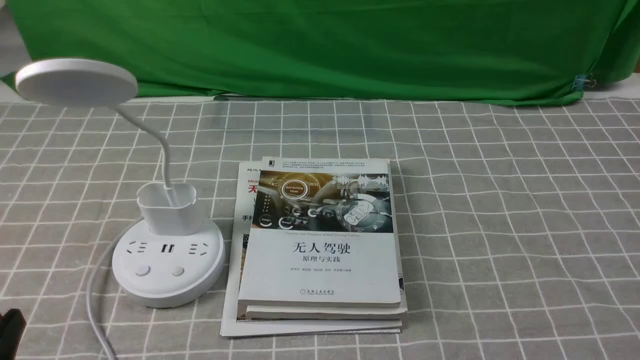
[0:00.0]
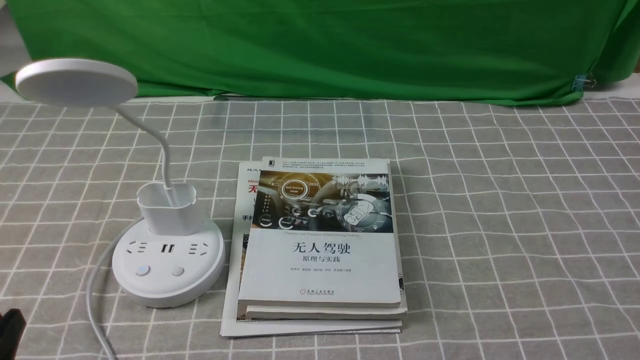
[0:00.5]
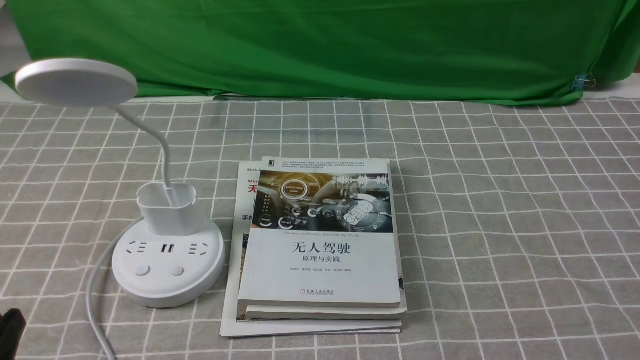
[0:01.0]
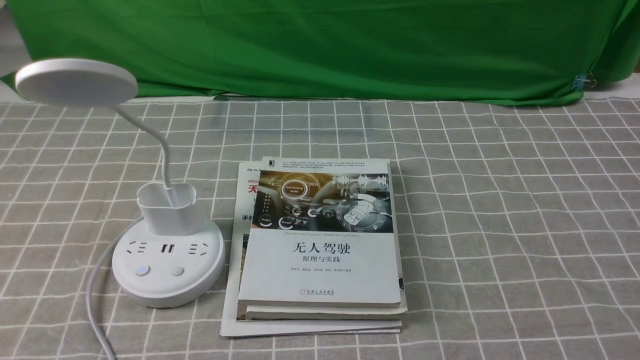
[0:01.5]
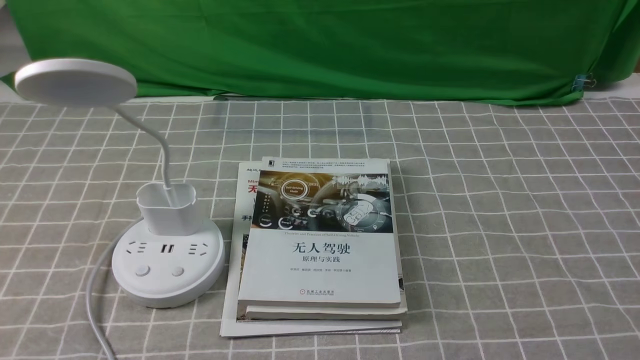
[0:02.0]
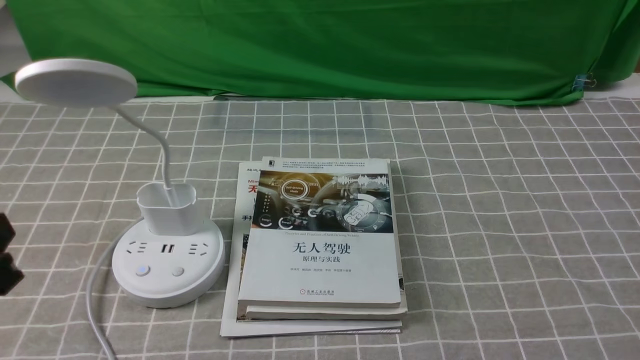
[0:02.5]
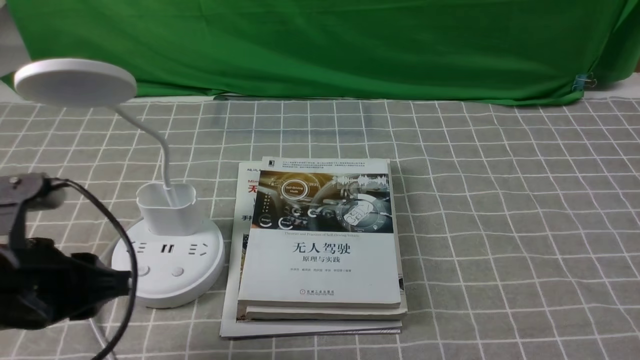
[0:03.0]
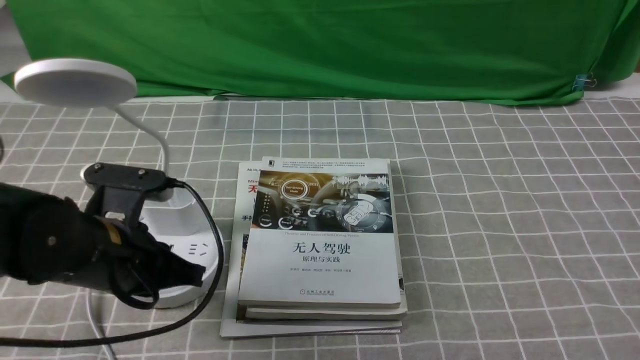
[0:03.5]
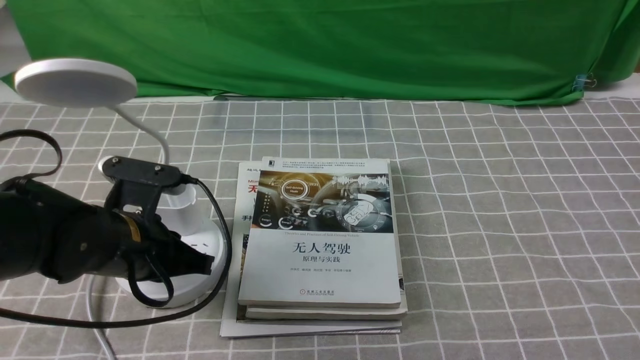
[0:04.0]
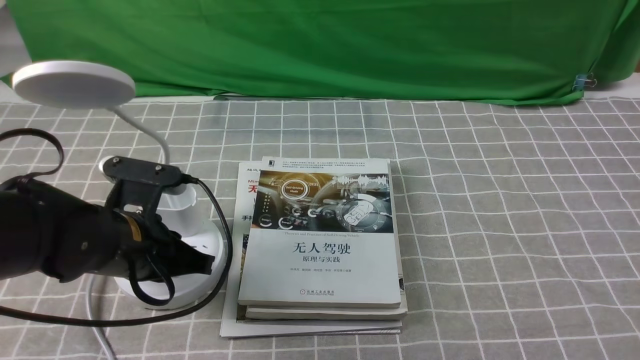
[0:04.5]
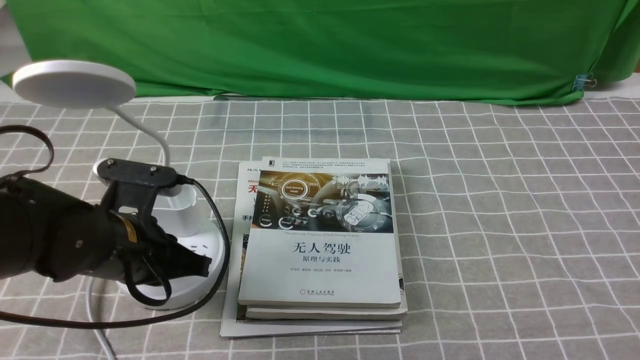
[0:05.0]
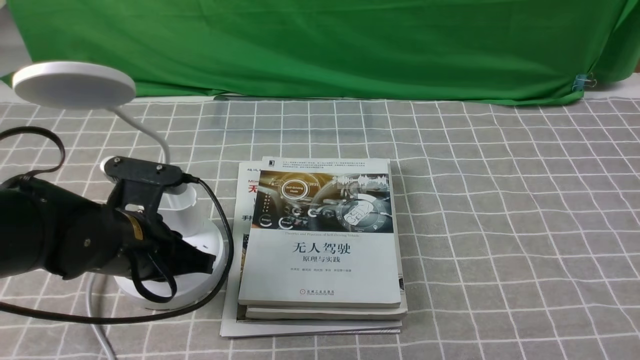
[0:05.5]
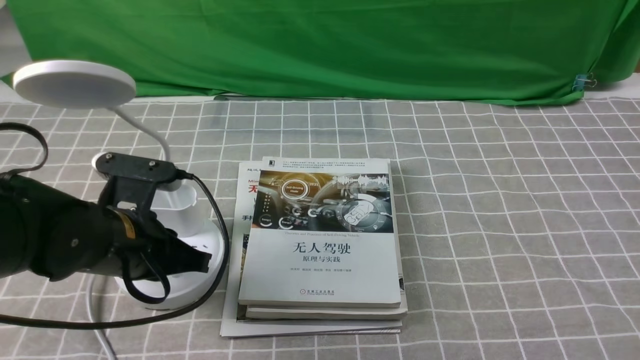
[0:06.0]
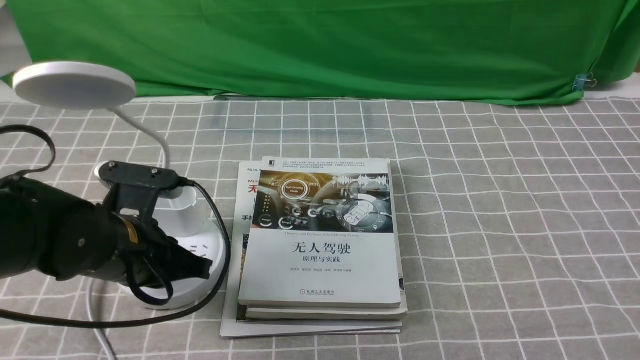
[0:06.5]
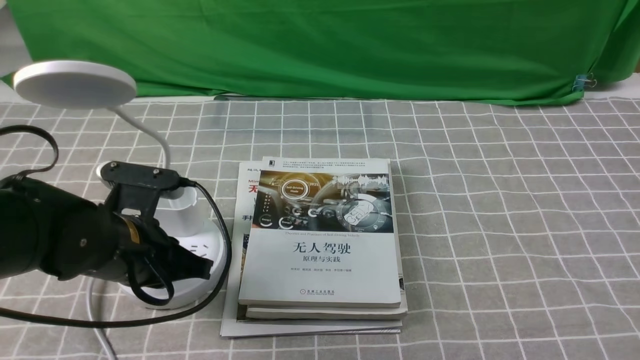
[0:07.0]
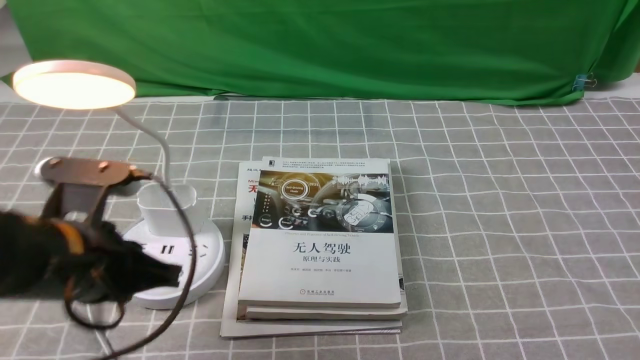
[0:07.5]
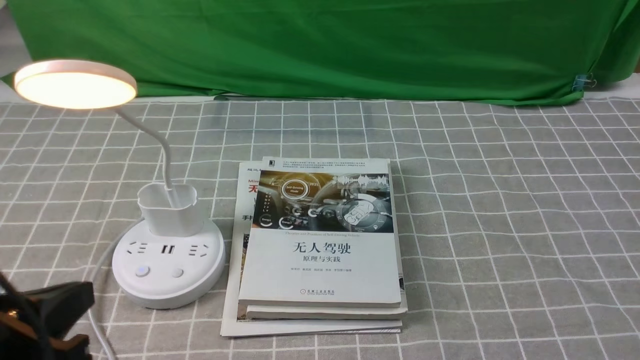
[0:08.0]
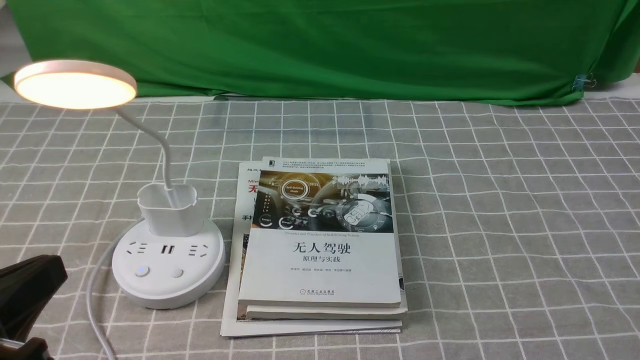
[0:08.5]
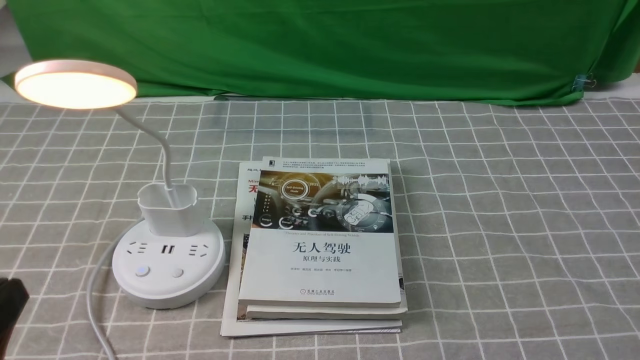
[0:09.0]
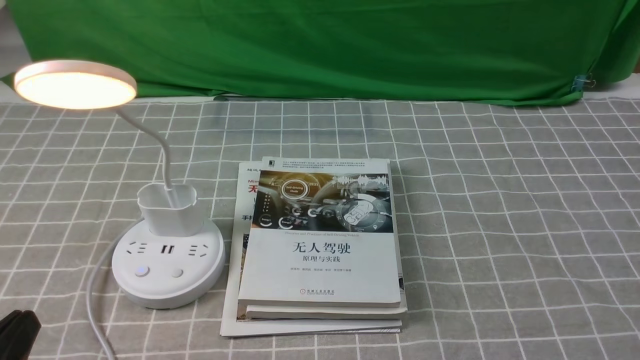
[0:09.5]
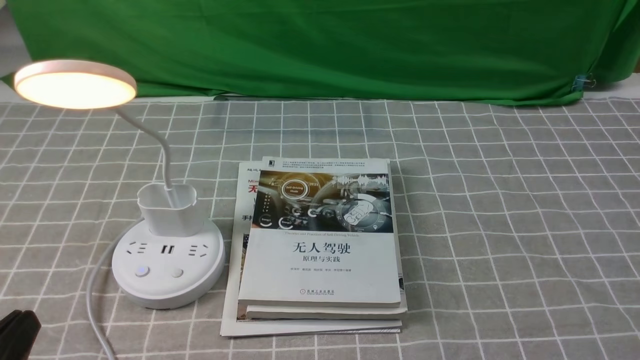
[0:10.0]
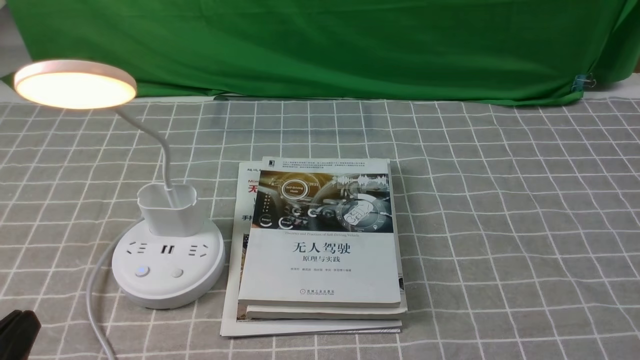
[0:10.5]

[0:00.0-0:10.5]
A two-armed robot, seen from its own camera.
Step, 0:00.0 to 0:07.0: use the left arm to press the button switch on the lamp holder.
0:02.0 to 0:04.0: The left gripper goes approximately 20 cm forward, and closes its fingers.
0:04.0 to 0:06.5: The two grippers keep their place.
0:06.5 to 0:08.5: The left gripper heads backward and upward, covering about 20 cm.
0:08.5 to 0:10.5: The left gripper is displaced downward by some 10 cm.
